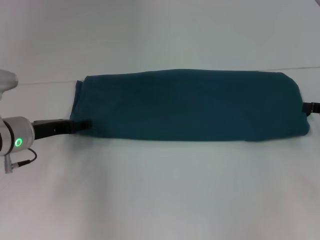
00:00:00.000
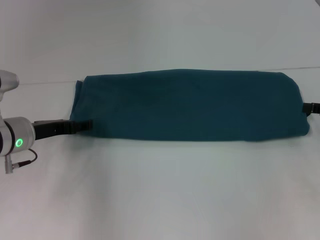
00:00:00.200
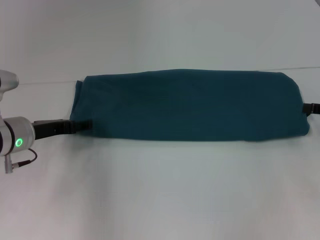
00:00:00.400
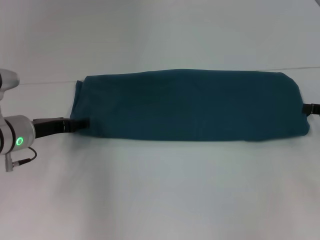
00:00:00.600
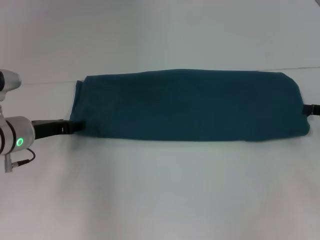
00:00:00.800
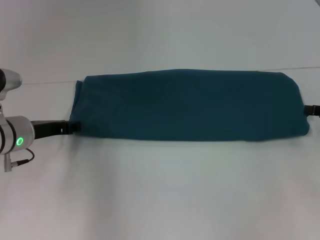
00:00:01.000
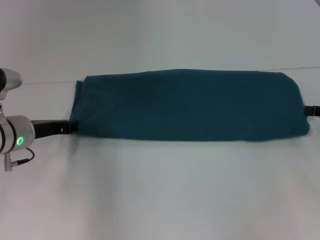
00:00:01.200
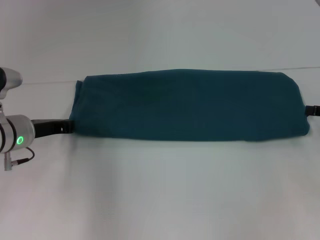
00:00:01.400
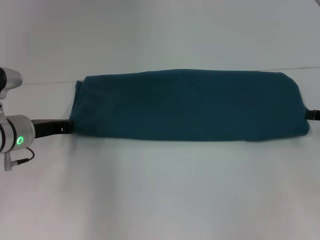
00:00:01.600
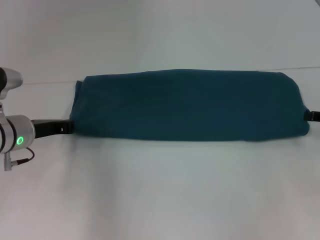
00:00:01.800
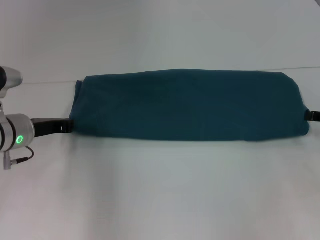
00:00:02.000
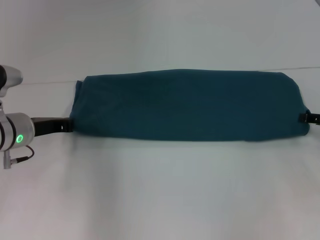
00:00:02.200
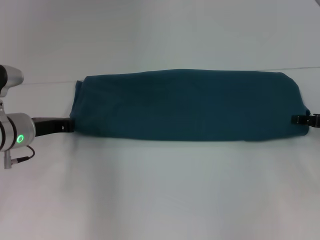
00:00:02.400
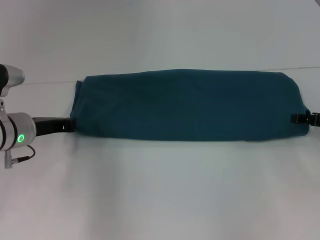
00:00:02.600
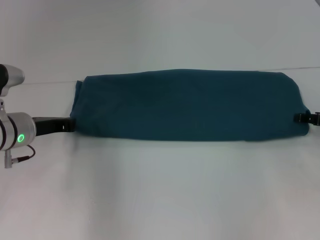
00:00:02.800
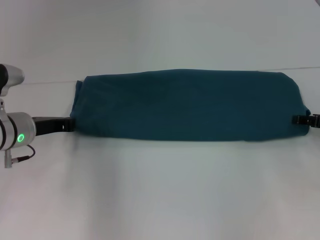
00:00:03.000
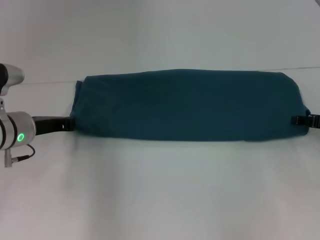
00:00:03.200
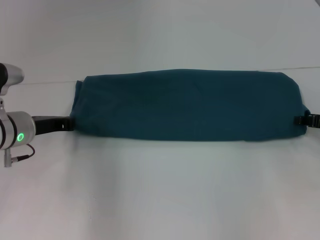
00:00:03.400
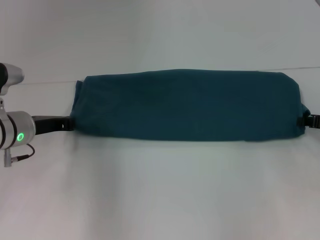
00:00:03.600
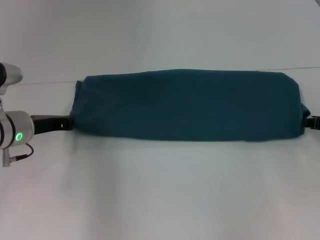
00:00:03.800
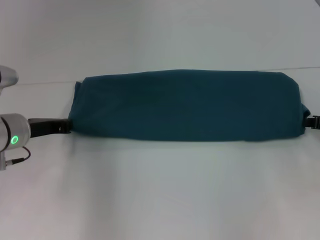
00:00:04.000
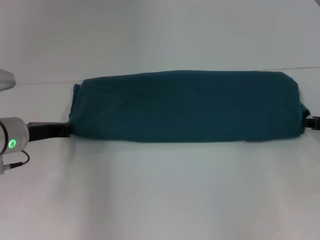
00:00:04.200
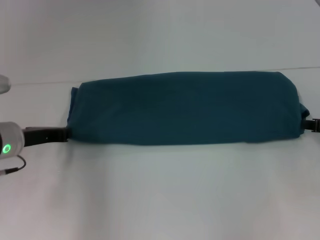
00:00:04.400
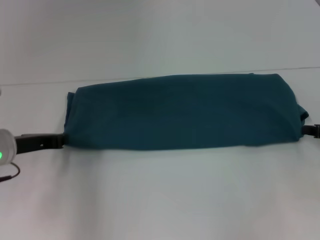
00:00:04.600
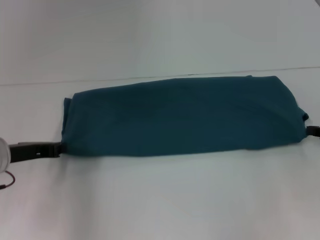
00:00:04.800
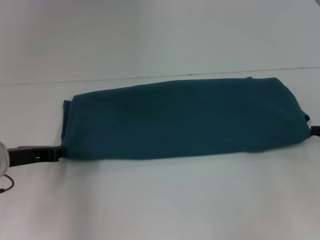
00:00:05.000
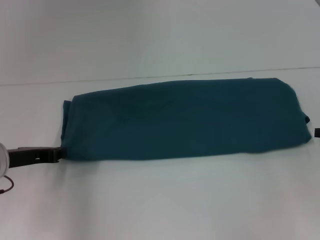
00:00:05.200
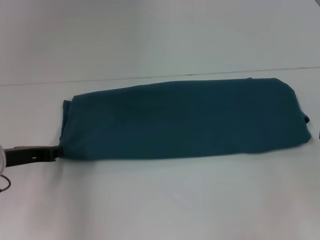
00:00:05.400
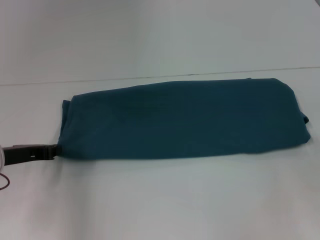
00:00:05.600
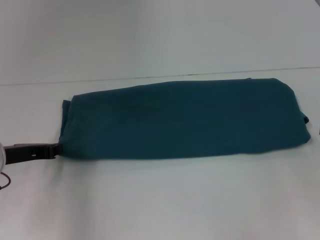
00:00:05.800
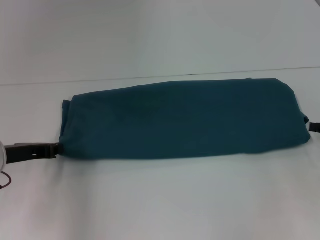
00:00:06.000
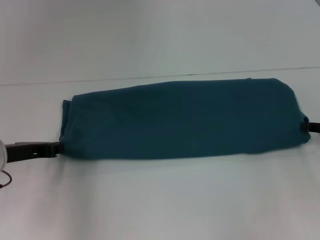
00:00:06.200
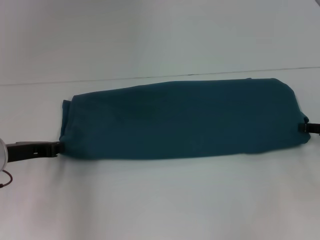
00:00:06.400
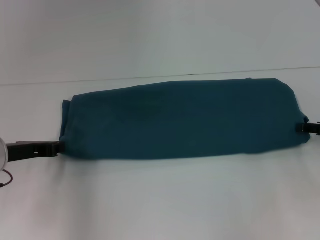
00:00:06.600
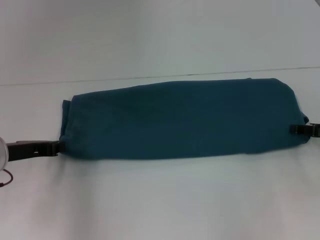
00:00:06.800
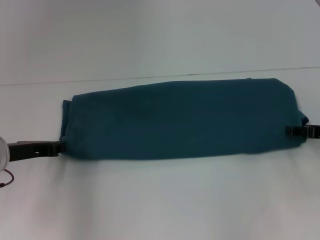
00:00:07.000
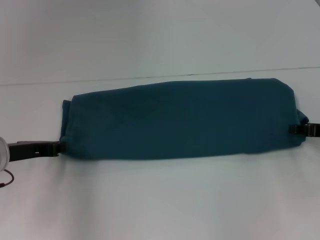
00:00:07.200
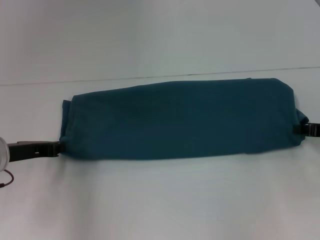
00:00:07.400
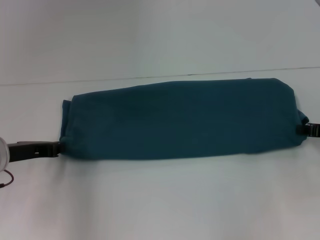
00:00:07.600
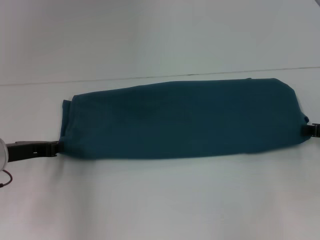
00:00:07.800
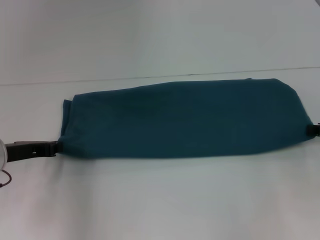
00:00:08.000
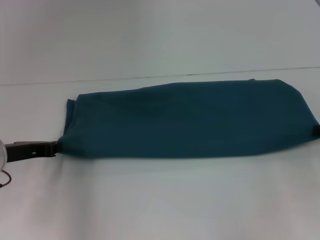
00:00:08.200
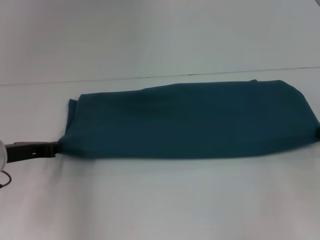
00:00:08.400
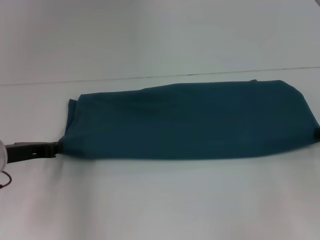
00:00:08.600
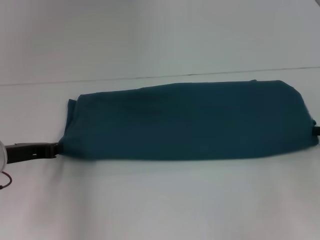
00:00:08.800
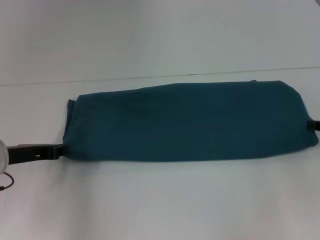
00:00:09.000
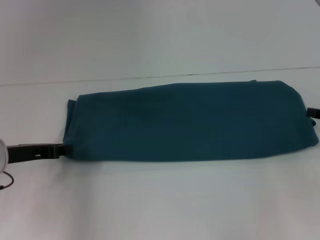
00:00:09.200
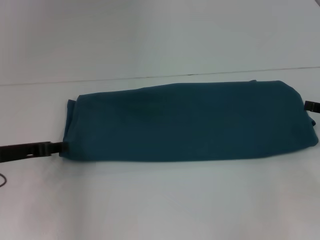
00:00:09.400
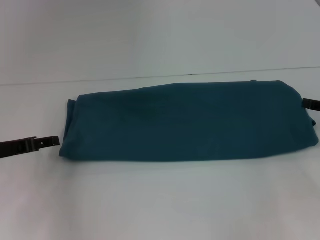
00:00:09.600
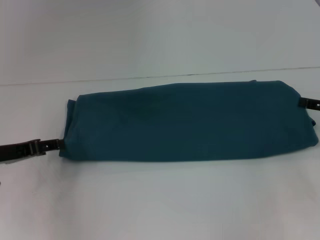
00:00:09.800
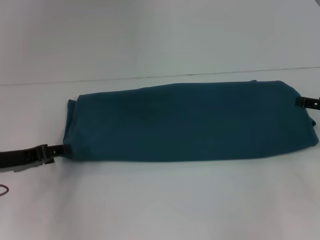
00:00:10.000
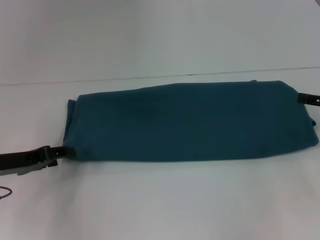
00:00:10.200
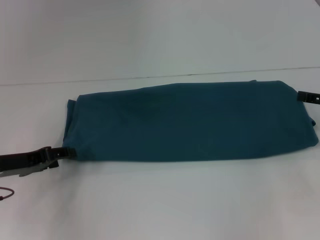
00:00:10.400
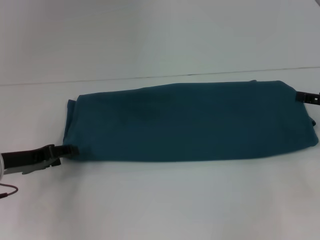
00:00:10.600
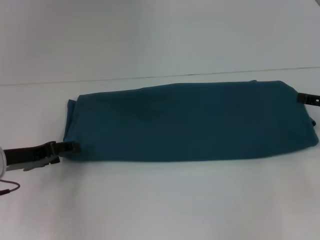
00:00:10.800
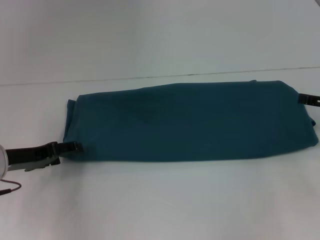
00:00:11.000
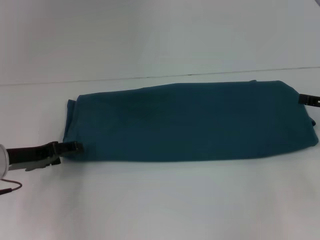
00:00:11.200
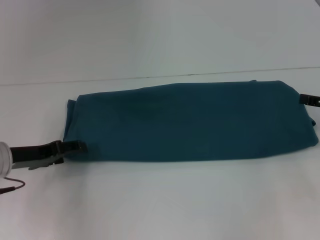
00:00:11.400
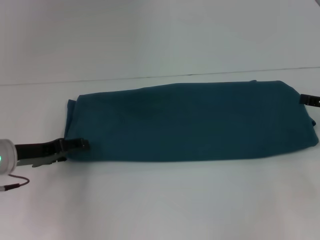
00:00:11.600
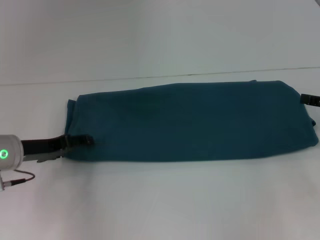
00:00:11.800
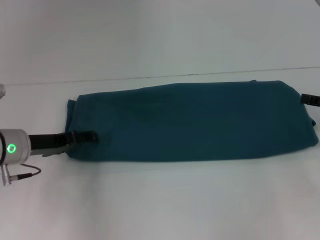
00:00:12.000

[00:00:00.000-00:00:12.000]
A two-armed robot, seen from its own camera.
00:00:00.000 to 00:00:01.600: The left gripper closes up.
00:00:01.600 to 00:00:03.000: The grippers move only a little.
00:00:03.000 to 00:00:04.400: The right gripper closes.
00:00:04.400 to 00:00:06.000: The grippers move only a little.
00:00:07.600 to 00:00:09.000: The grippers stay close to where they were, moving slightly.
00:00:09.000 to 00:00:10.400: The left gripper opens up.
00:00:10.400 to 00:00:12.000: The left gripper ends up approximately 5 cm from where it was.

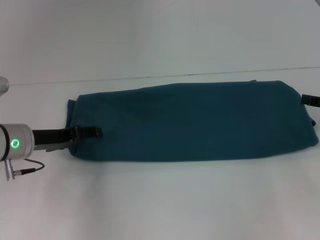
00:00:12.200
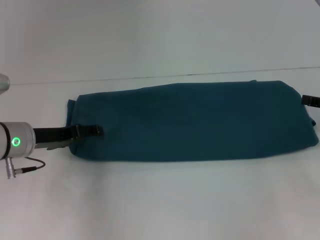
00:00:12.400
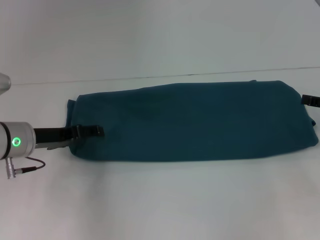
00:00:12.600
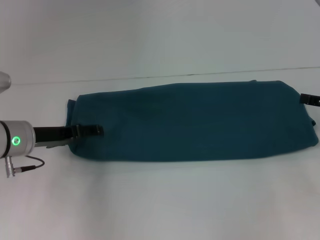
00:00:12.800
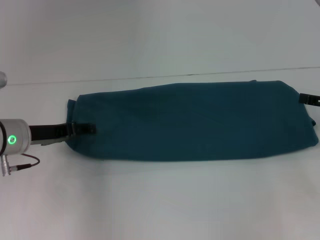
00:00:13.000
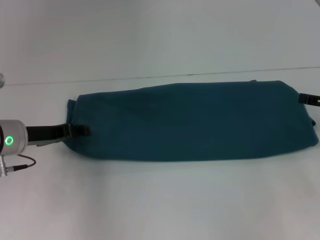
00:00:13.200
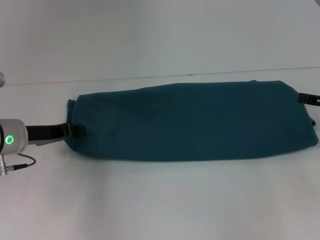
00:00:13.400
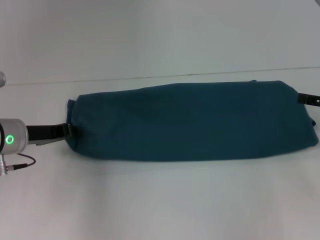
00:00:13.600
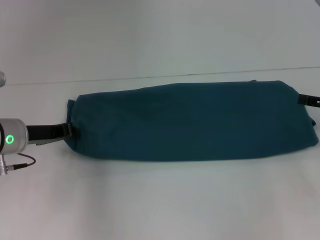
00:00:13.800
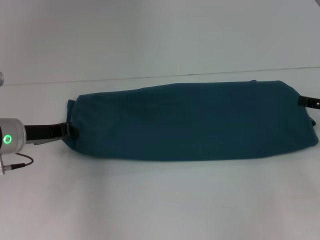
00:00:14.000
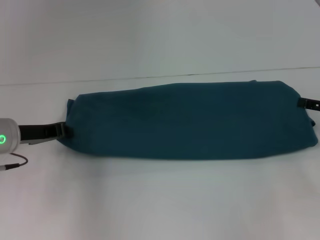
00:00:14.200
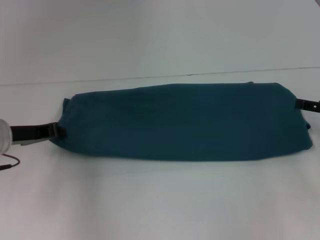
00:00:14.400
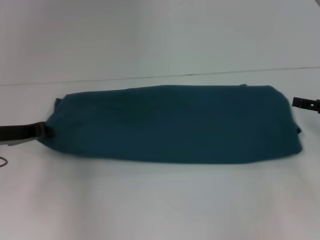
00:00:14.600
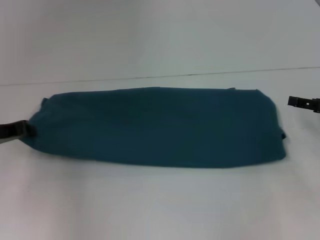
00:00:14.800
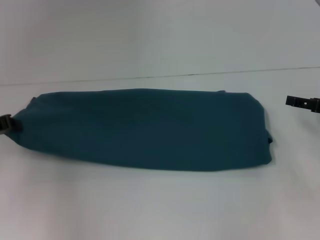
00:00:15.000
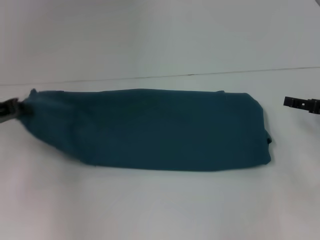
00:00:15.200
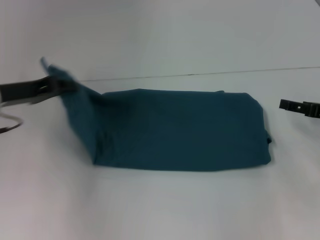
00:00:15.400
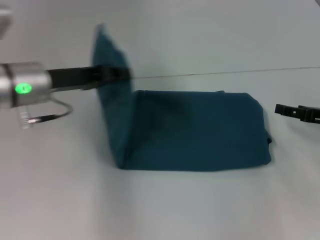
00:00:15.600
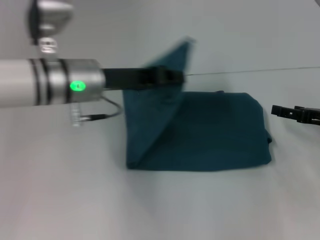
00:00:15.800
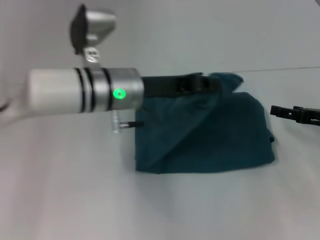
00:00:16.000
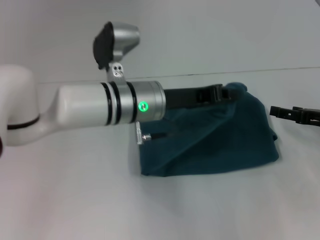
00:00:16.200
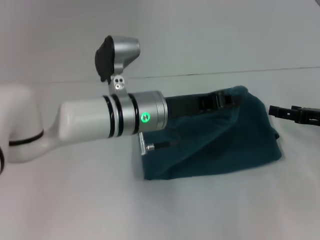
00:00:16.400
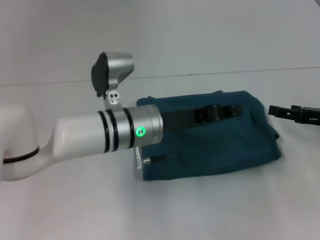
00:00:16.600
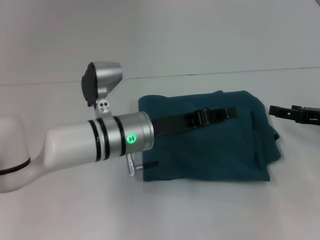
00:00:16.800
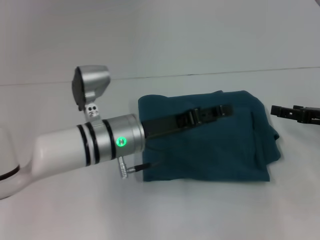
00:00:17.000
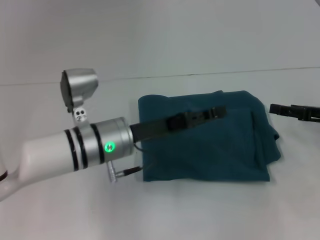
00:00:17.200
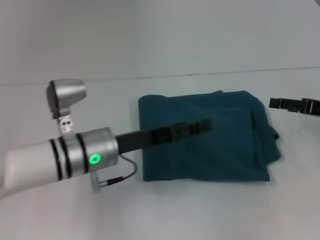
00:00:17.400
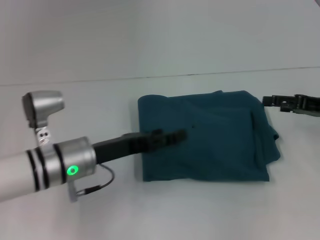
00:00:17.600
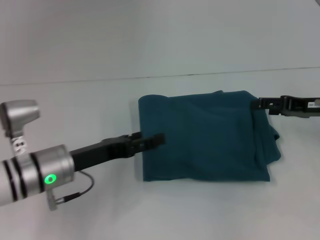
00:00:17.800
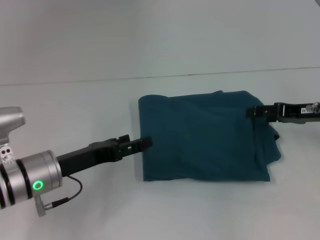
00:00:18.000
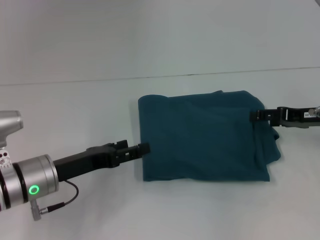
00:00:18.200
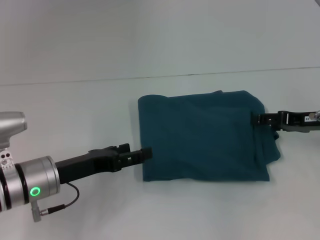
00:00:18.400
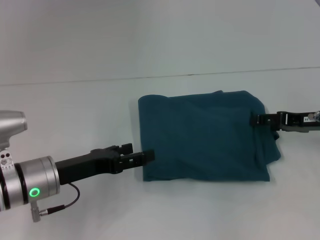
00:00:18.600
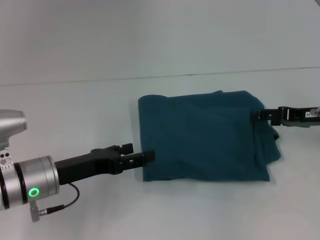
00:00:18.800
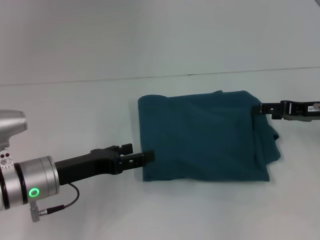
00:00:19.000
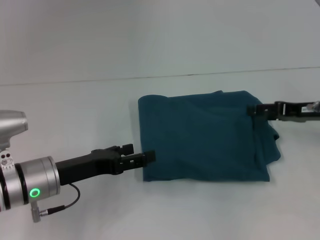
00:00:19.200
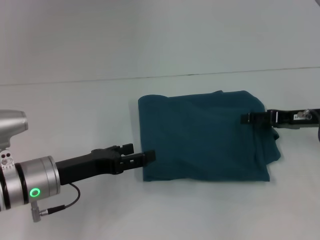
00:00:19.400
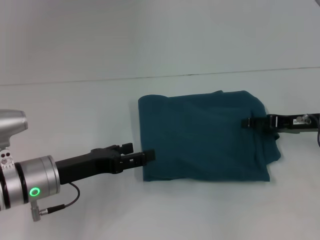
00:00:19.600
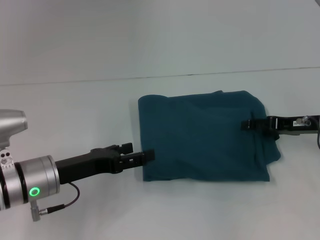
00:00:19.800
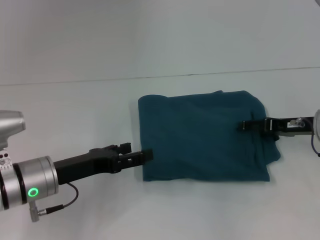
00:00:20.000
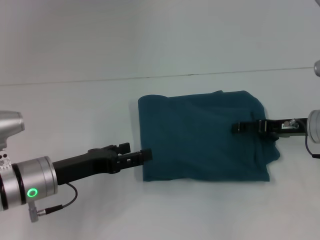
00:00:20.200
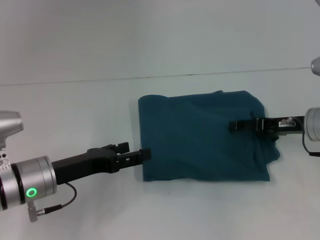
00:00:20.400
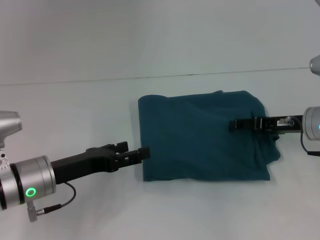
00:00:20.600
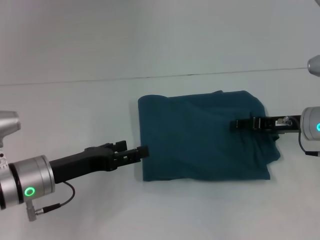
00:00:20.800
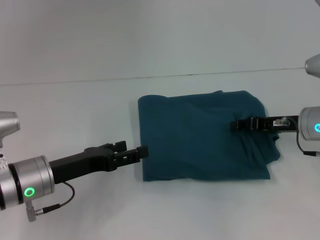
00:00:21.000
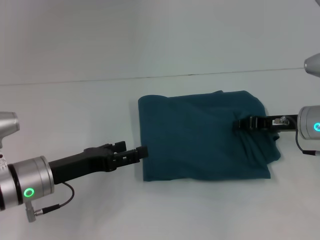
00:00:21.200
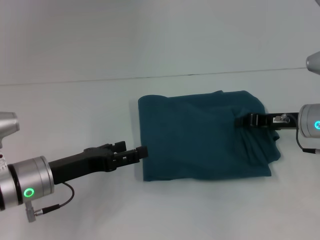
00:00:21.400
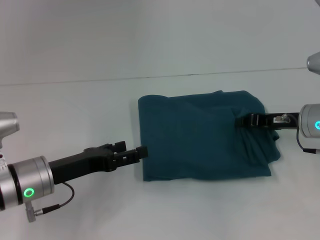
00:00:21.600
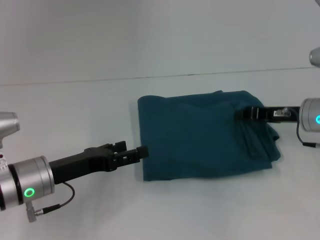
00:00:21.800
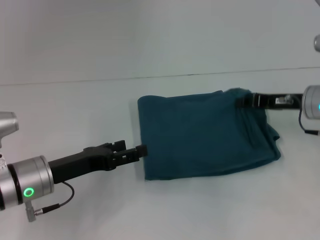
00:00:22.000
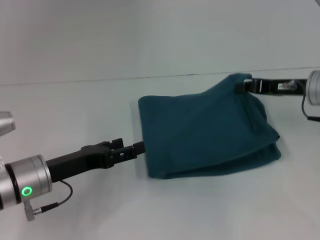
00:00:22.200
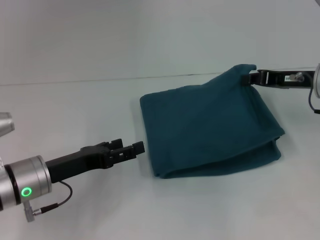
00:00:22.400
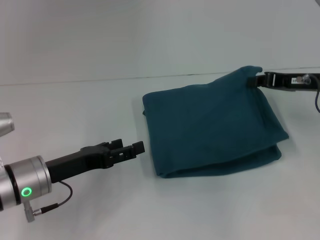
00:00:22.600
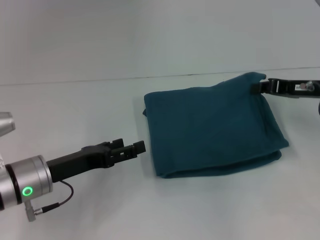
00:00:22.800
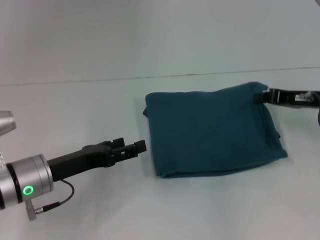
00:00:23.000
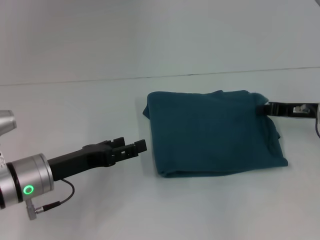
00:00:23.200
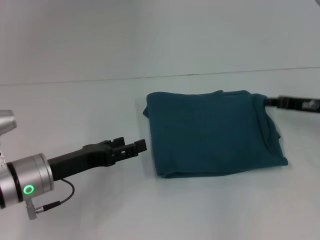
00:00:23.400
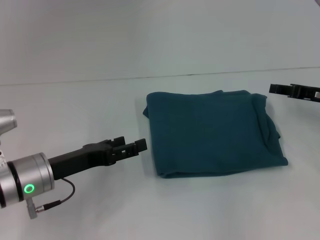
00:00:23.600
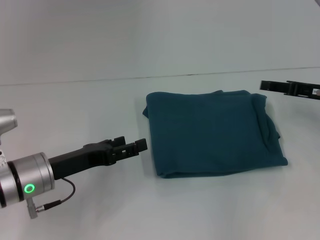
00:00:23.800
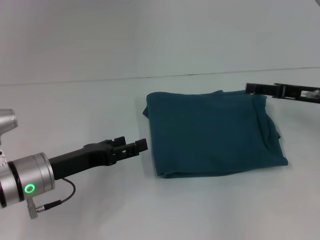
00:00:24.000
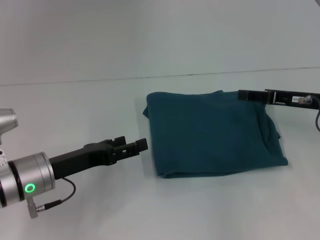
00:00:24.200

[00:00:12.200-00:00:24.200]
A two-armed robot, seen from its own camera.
Step, 00:00:12.200 to 00:00:17.000: Fold the clothes to the left.
00:00:12.200 to 00:00:13.800: The left gripper closes up.
00:00:13.800 to 00:00:15.200: The left gripper is displaced to the left by some 5 cm.
00:00:15.200 to 00:00:16.600: The left gripper heads to the right, covering approximately 25 cm.
00:00:16.600 to 00:00:18.200: The left gripper shifts roughly 15 cm to the left, and opens.
00:00:18.200 to 00:00:19.800: There are only small adjustments of the grippers.
00:00:19.800 to 00:00:21.200: The right gripper closes.
00:00:21.200 to 00:00:22.600: The right gripper heads upward, covering about 5 cm.
00:00:22.600 to 00:00:24.200: The right gripper opens its fingers.
